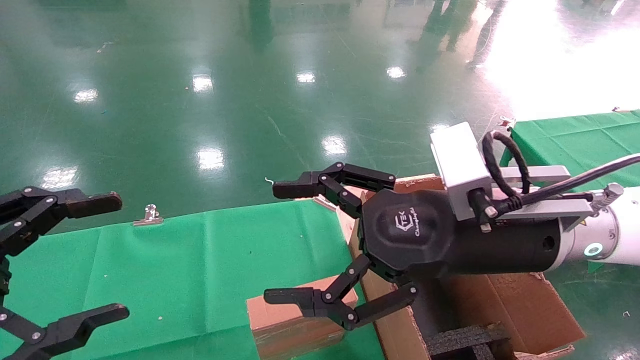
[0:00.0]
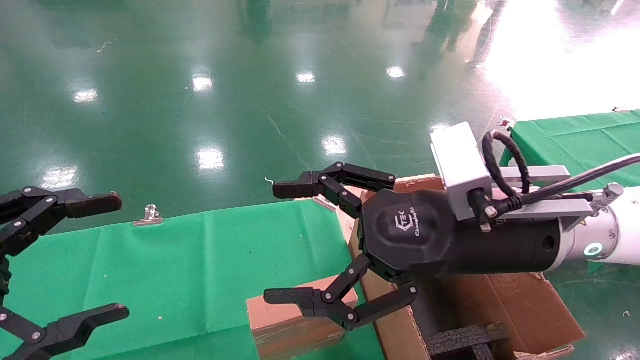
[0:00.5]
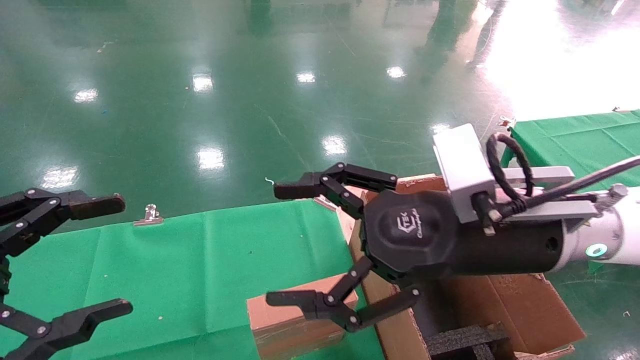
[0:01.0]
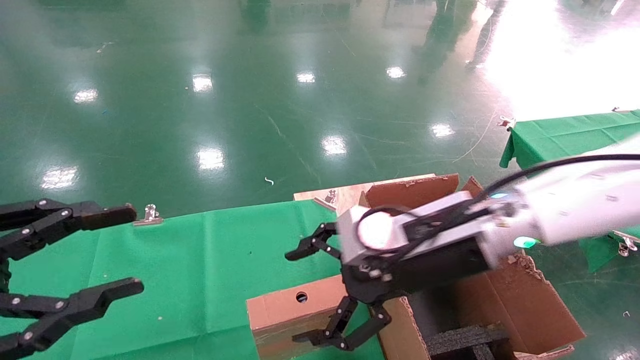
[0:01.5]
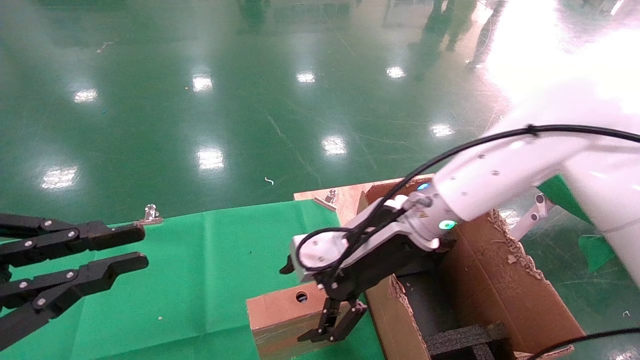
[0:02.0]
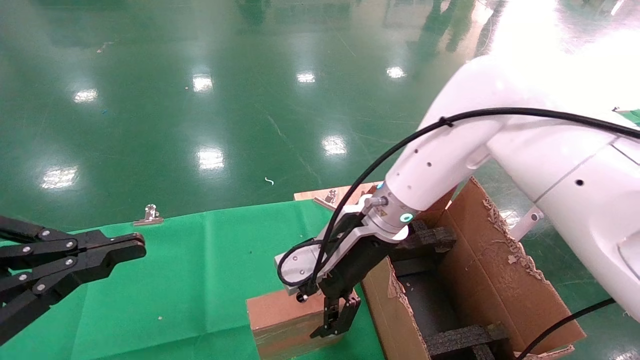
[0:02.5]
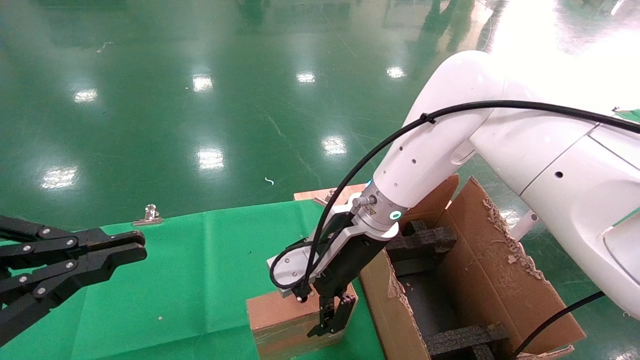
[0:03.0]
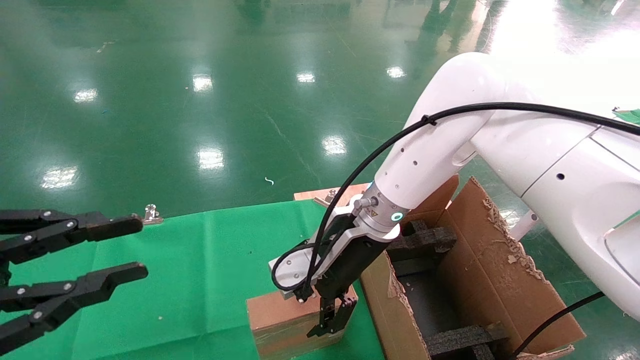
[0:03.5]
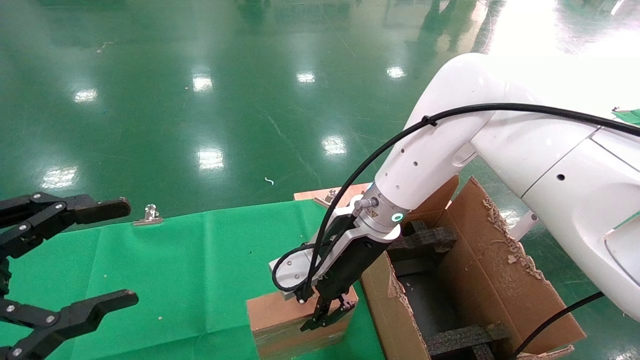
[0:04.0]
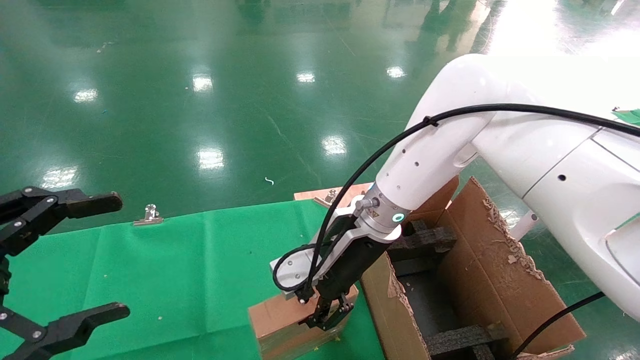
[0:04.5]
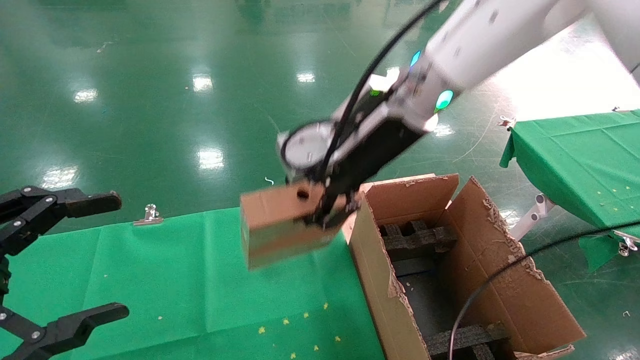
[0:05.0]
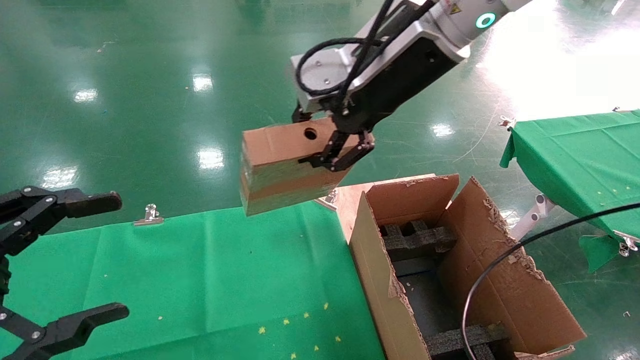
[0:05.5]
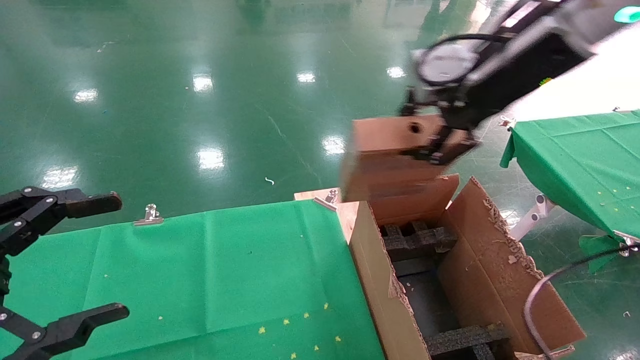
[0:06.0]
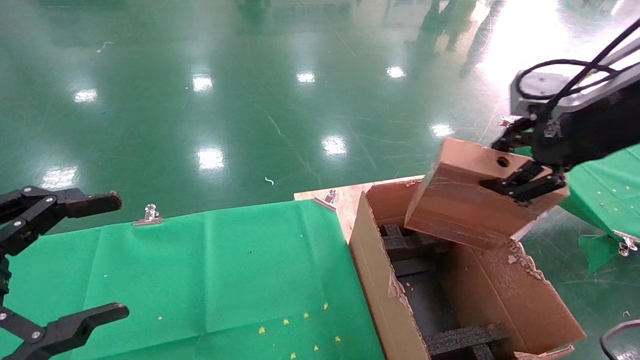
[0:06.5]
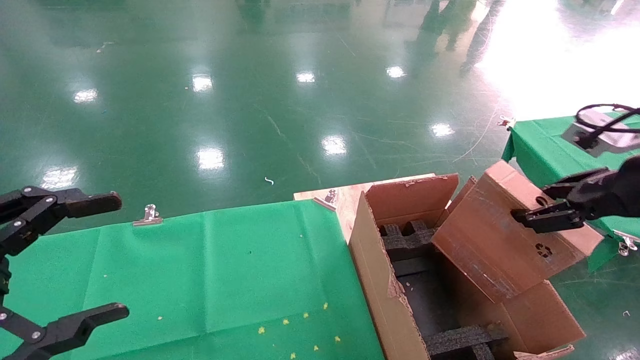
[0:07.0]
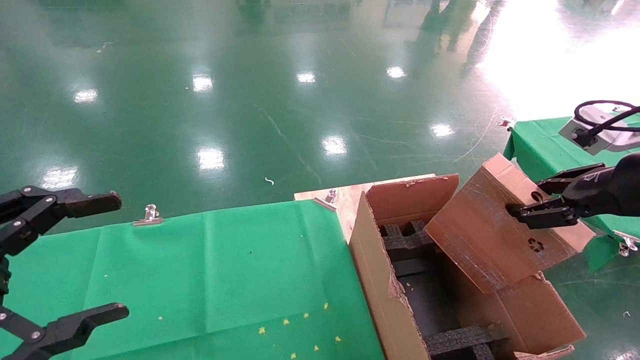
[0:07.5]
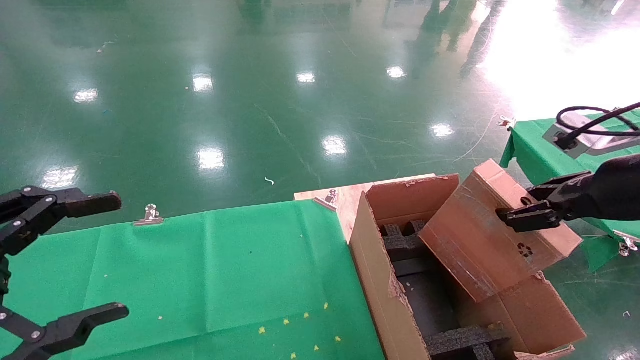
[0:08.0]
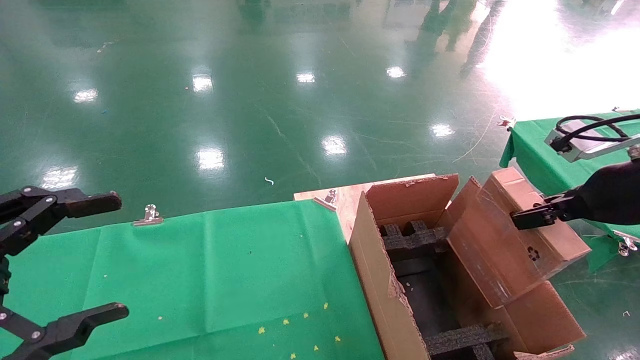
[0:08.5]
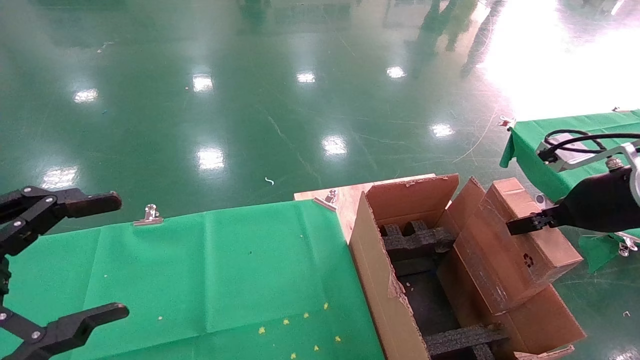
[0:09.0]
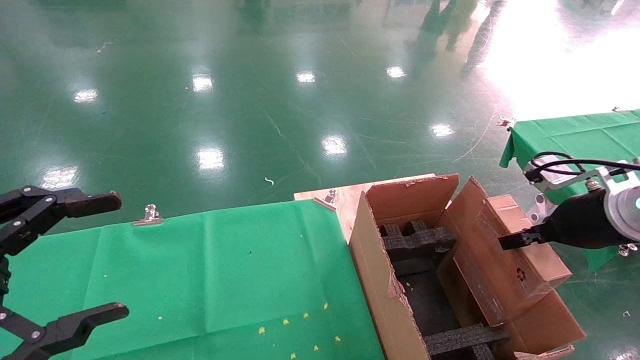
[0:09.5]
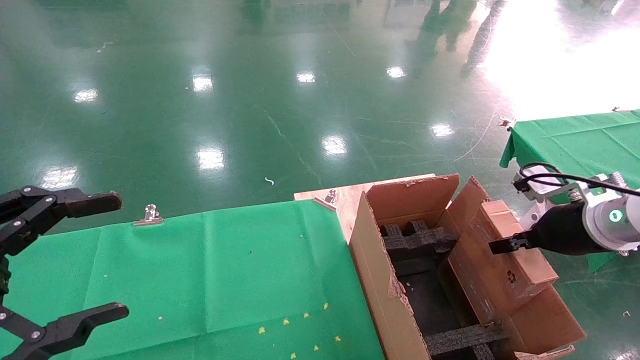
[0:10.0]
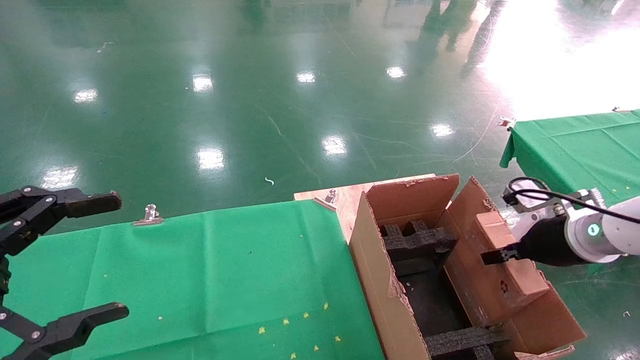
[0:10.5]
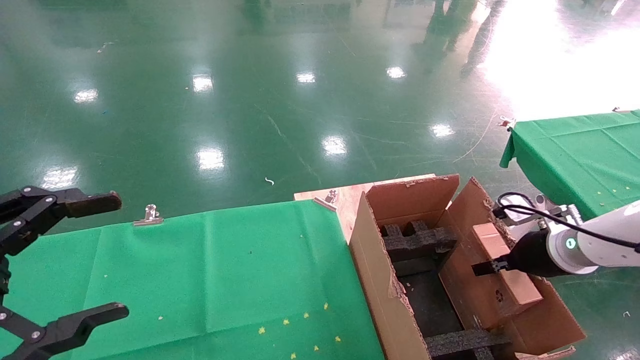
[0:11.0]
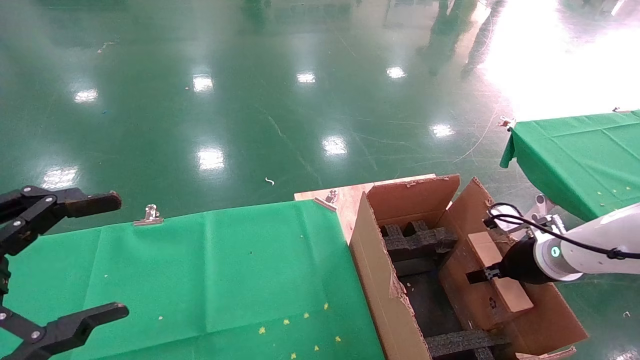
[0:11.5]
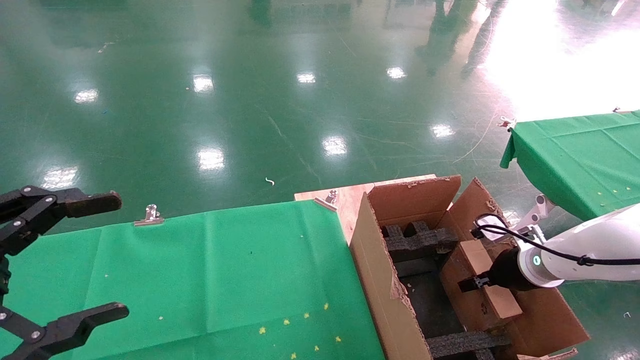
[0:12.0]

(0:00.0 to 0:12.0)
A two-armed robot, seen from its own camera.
Task of the whole recording: using a robotic arm to pick up a cardboard box and palace it the carton.
Step, 0:01.5 - 0:04.0: Pick up the mouse and the power cord paper box.
0:00.0 - 0:02.0: The right gripper travels forward and to the left by roughly 10 cm, while the left gripper closes.
0:02.0 - 0:04.0: The left gripper opens its fingers. Meanwhile the right gripper shifts by approximately 5 cm, and closes.
0:04.0 - 0:06.0: The right gripper goes approximately 25 cm upward and to the right, and closes. Meanwhile the left gripper opens its fingers.
0:06.0 - 0:08.0: The right gripper travels to the right, downward and backward by roughly 20 cm.
0:08.0 - 0:10.0: The right gripper goes about 10 cm downward and forward.
0:10.0 - 0:12.0: The right gripper shifts about 15 cm downward and forward.

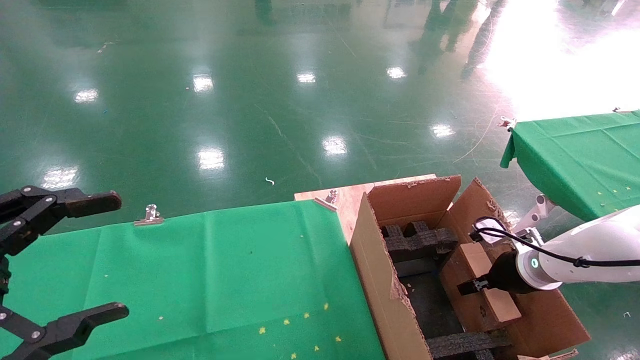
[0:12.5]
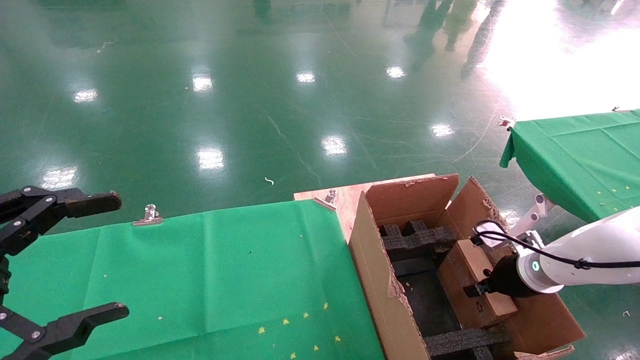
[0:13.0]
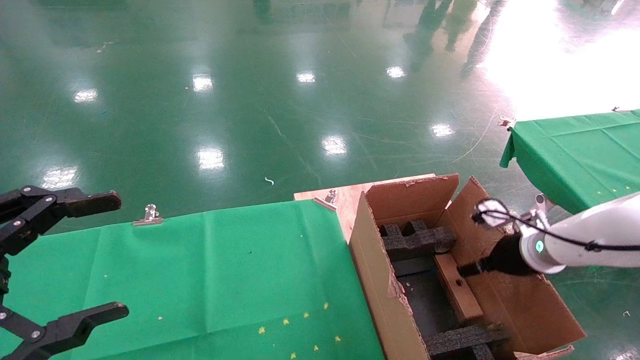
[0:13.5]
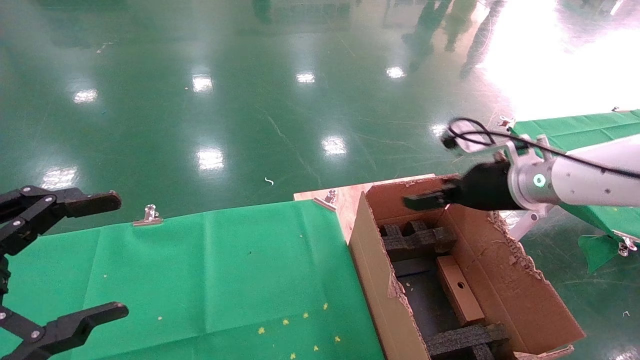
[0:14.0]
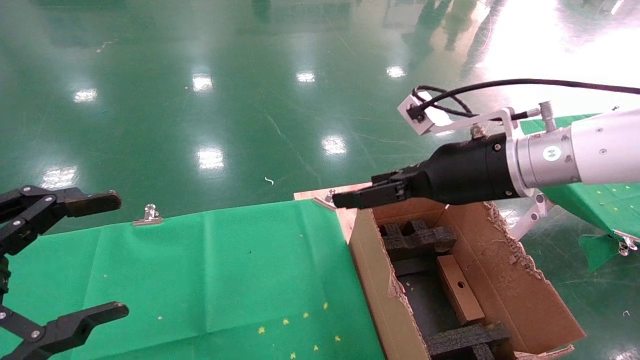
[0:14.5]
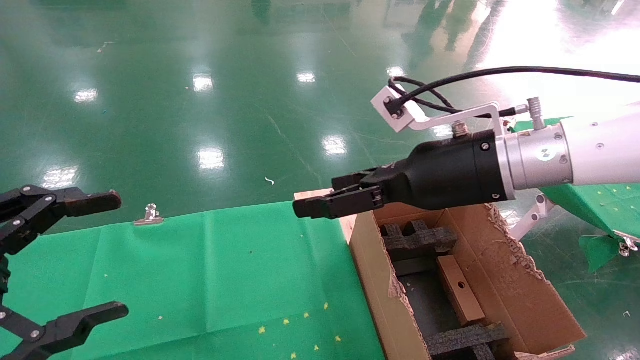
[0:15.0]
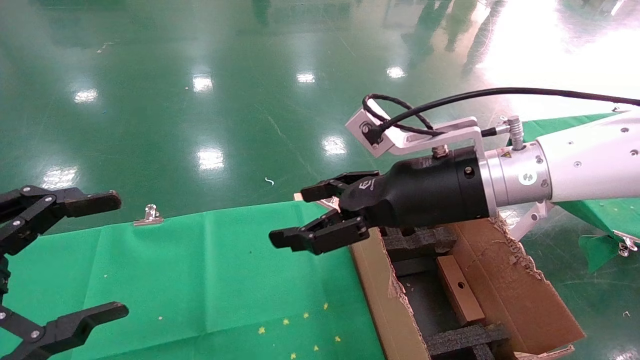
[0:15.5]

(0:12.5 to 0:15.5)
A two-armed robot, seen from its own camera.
Task of the whole recording: using a robotic arm to pick up a cardboard box and palace it the carton.
0:12.5 - 0:14.0: The right gripper moves upward and to the left, roughly 20 cm, and opens its fingers.
0:14.0 - 0:15.5: The right gripper travels to the left and backward by approximately 15 cm.

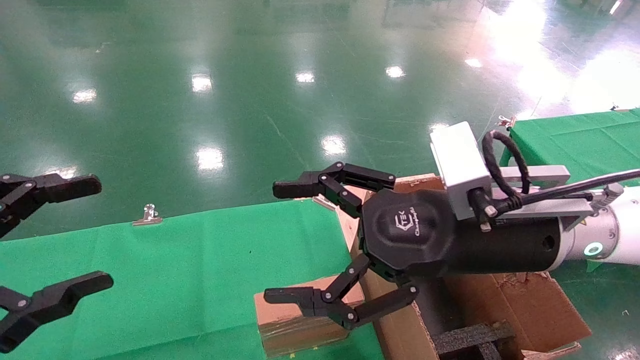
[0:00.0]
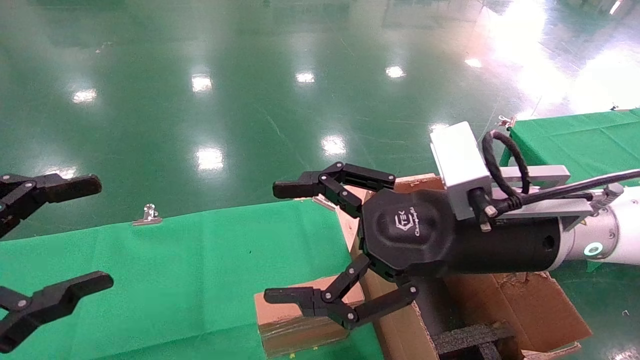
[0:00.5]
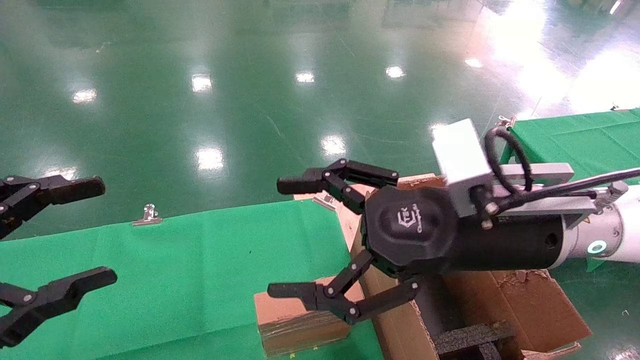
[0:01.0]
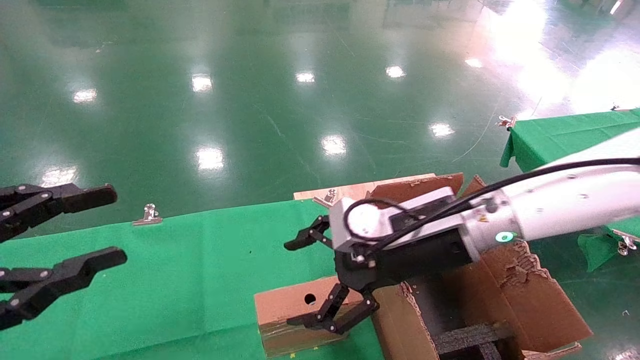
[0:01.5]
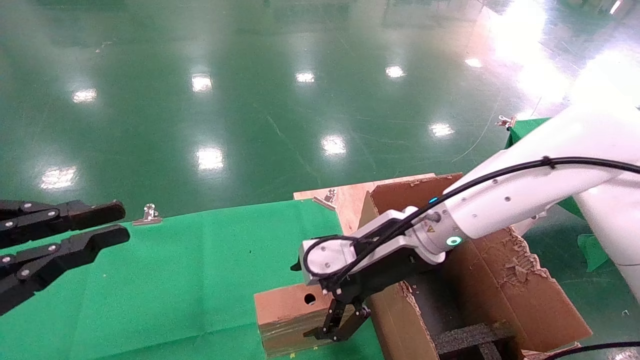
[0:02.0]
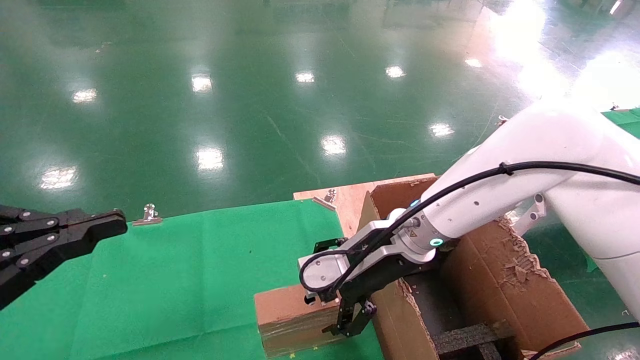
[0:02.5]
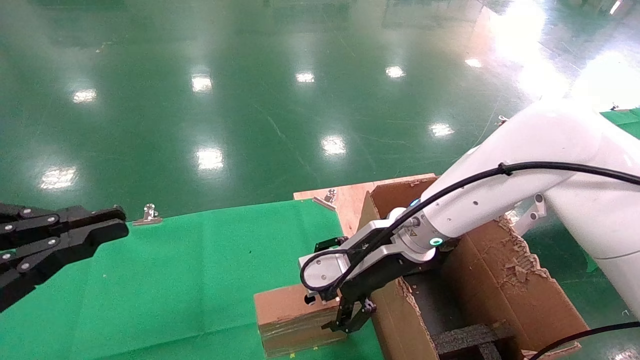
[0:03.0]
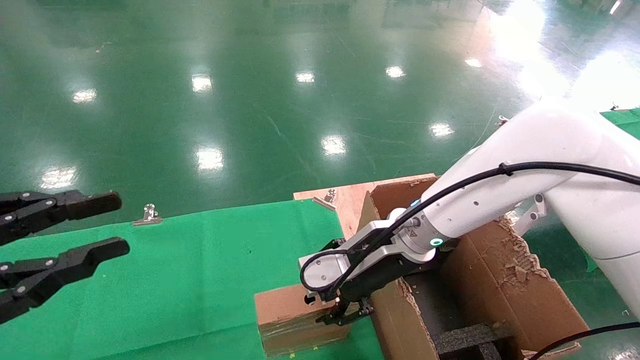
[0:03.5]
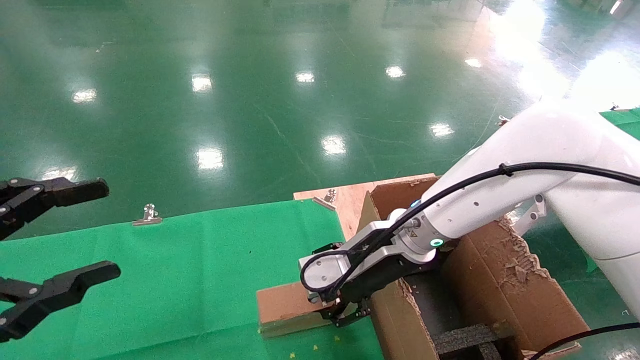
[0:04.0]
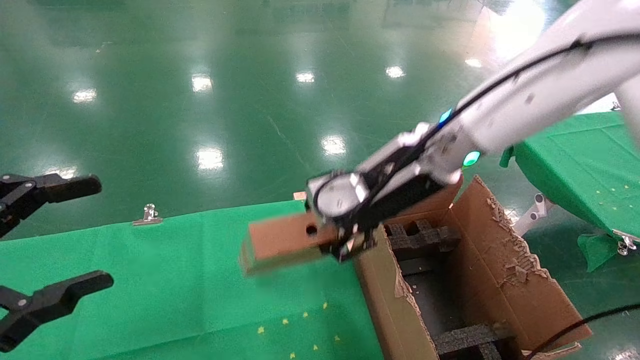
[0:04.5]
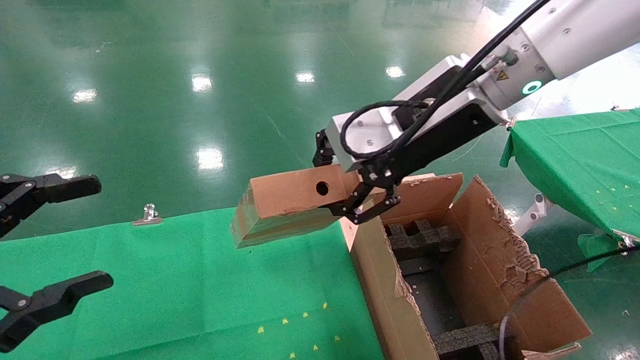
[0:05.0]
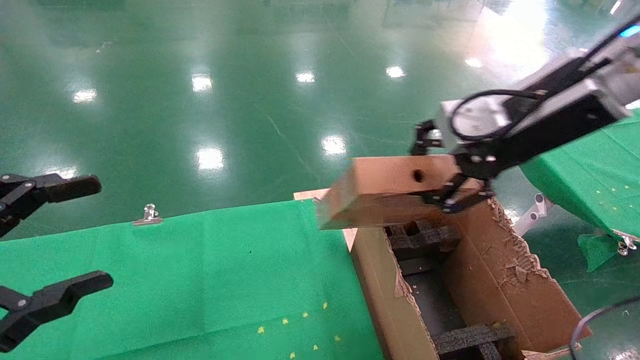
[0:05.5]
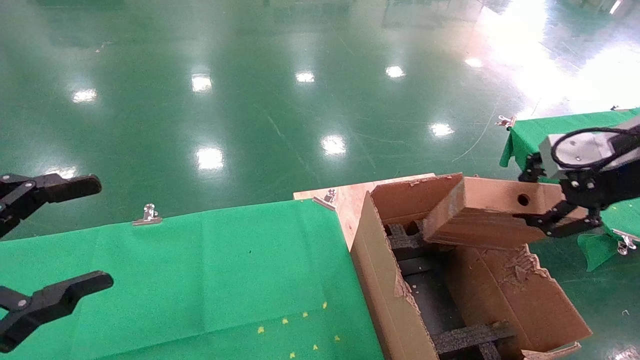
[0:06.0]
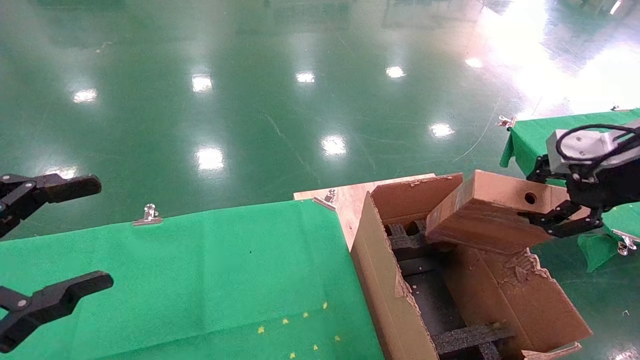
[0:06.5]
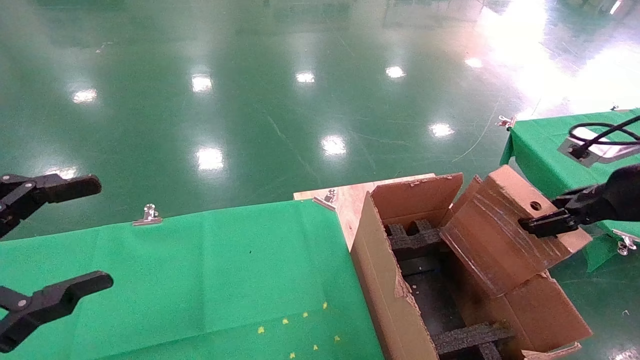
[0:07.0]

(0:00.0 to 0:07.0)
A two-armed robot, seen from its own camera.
Task of the whole recording: using a robotic arm to pick up a cardboard box and palace it the carton.
Step, 0:01.5 - 0:03.5: Pick up the mouse and the power cord paper box.
0:00.0 - 0:02.0: The left gripper closes up. The right gripper heads forward and downward, covering about 10 cm.
0:02.0 - 0:03.5: The right gripper closes.
0:03.5 - 0:05.0: The right gripper heads upward, covering roughly 20 cm, and closes. The left gripper opens up.
0:05.0 - 0:07.0: The right gripper heads to the right, covering approximately 30 cm.
